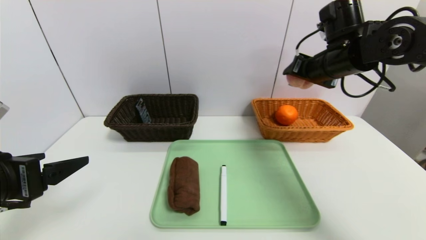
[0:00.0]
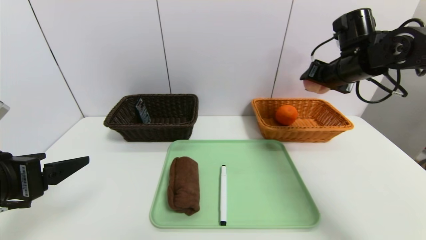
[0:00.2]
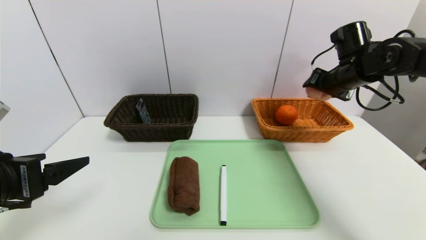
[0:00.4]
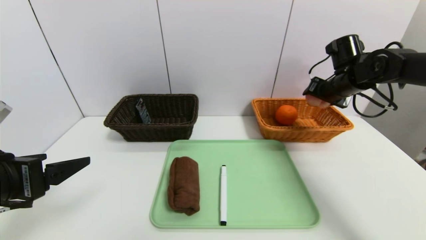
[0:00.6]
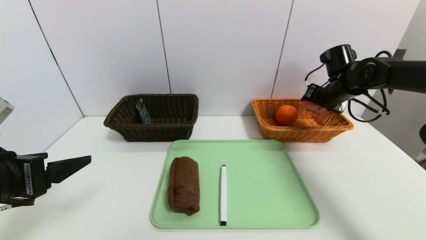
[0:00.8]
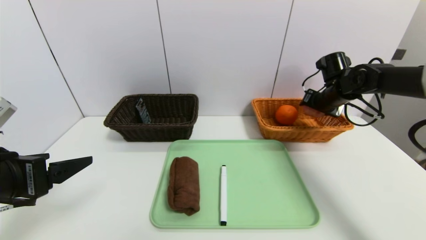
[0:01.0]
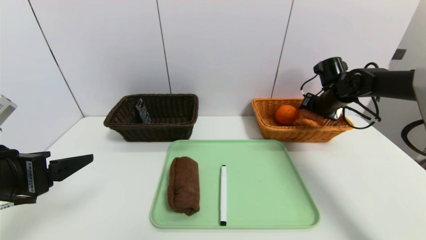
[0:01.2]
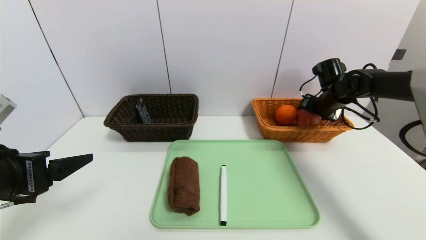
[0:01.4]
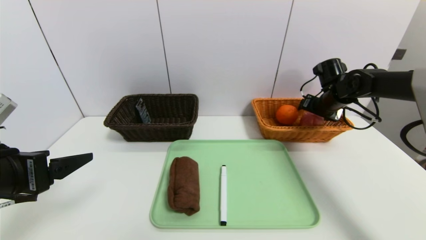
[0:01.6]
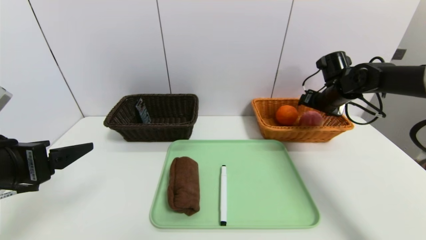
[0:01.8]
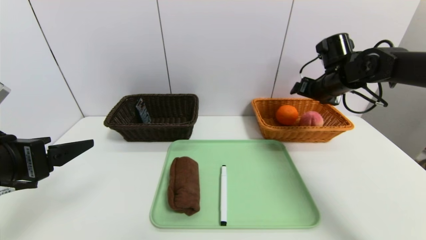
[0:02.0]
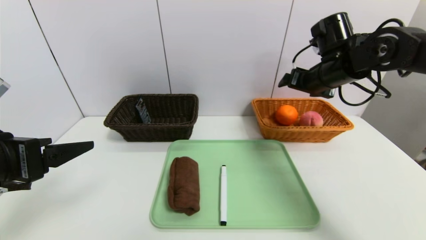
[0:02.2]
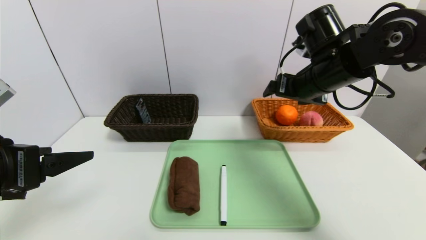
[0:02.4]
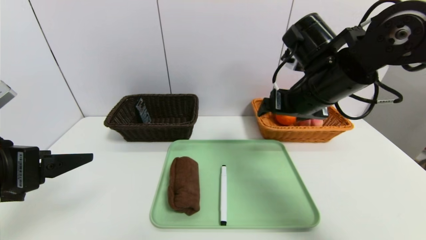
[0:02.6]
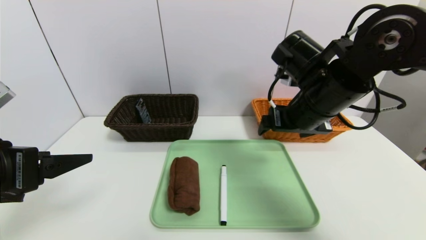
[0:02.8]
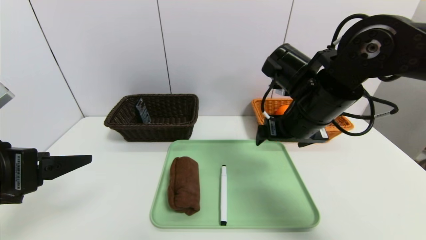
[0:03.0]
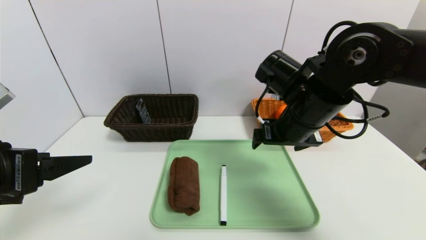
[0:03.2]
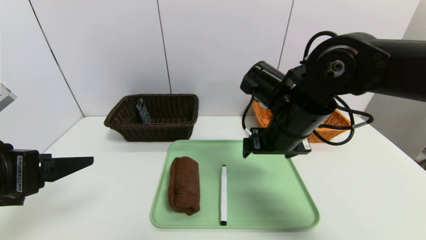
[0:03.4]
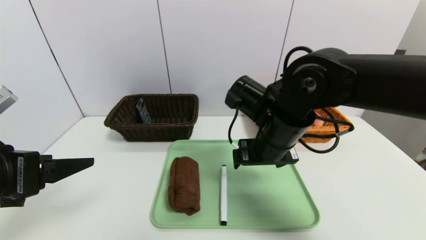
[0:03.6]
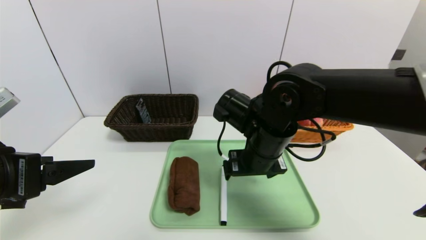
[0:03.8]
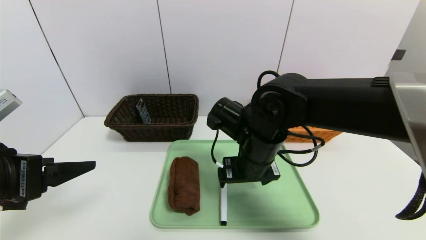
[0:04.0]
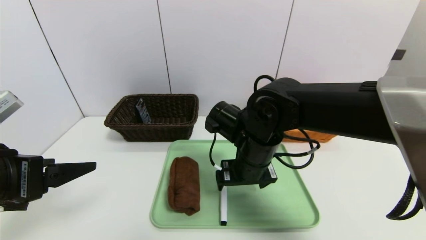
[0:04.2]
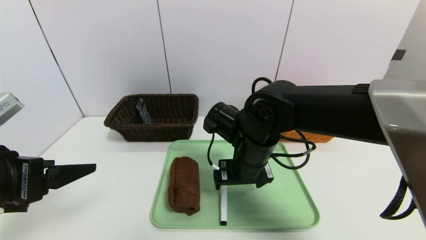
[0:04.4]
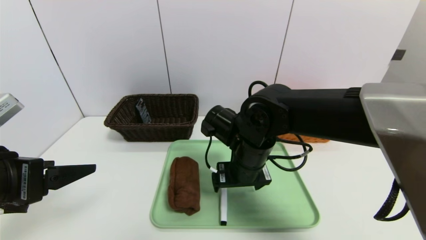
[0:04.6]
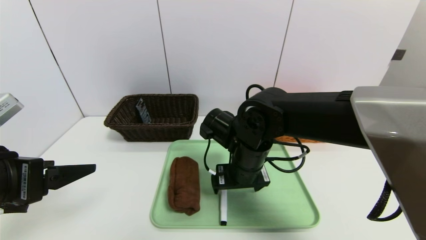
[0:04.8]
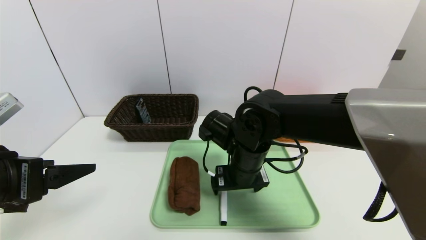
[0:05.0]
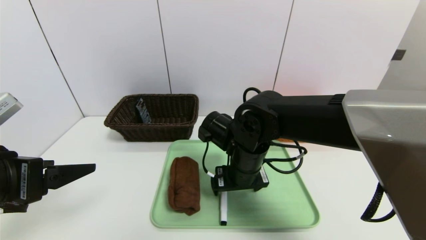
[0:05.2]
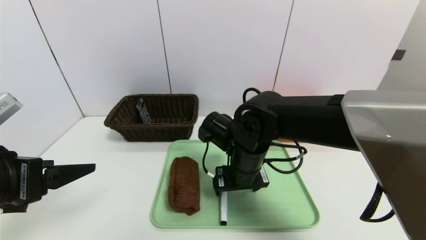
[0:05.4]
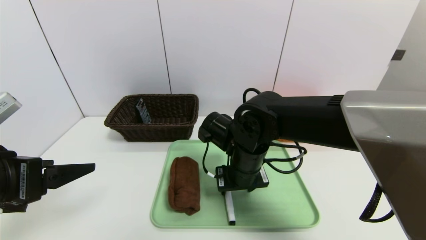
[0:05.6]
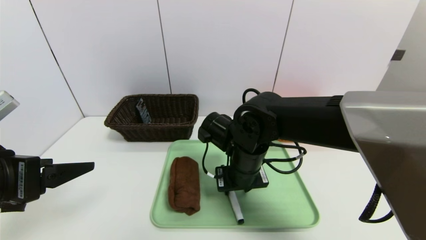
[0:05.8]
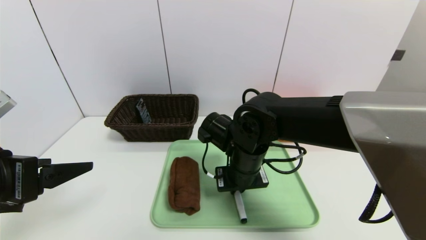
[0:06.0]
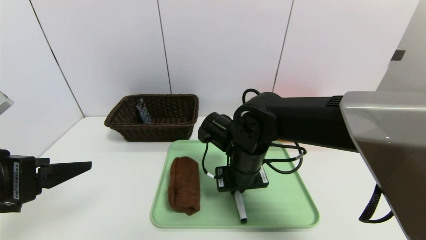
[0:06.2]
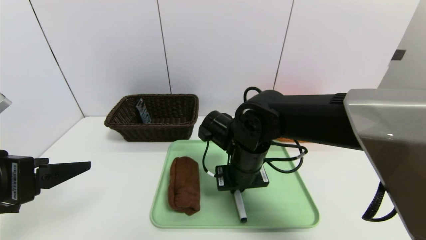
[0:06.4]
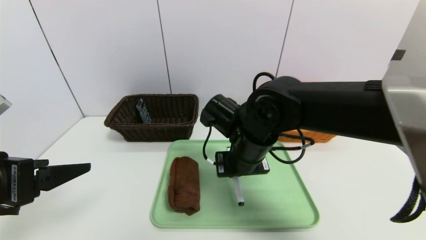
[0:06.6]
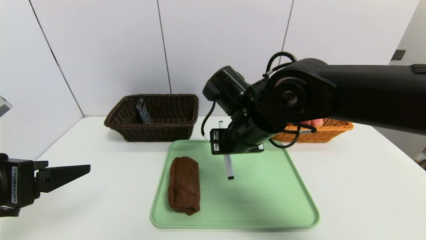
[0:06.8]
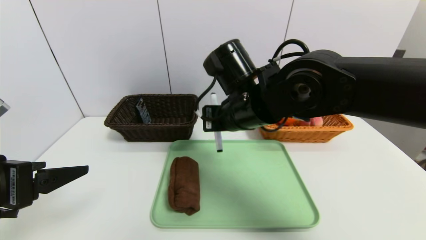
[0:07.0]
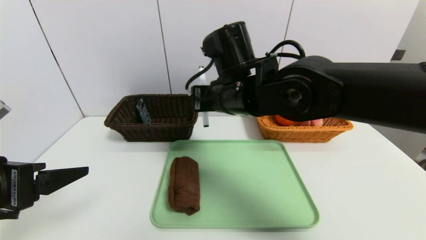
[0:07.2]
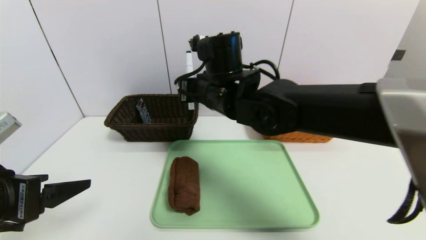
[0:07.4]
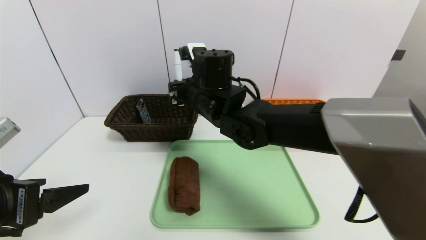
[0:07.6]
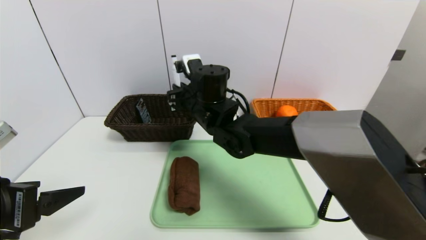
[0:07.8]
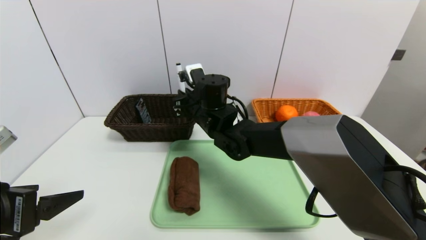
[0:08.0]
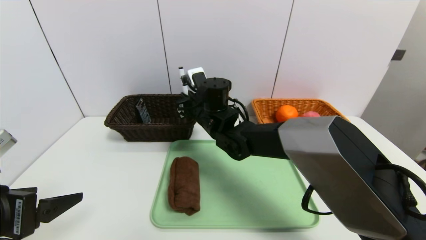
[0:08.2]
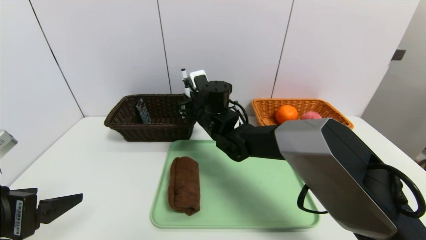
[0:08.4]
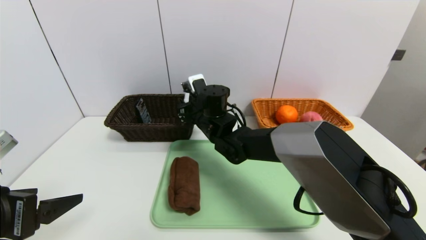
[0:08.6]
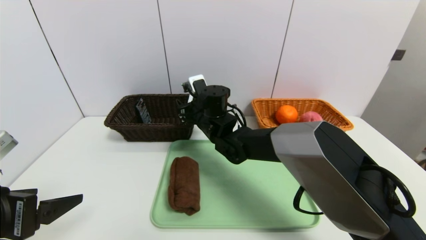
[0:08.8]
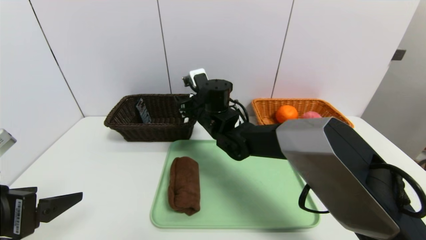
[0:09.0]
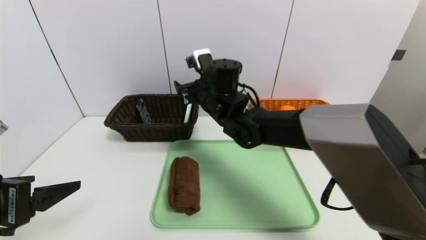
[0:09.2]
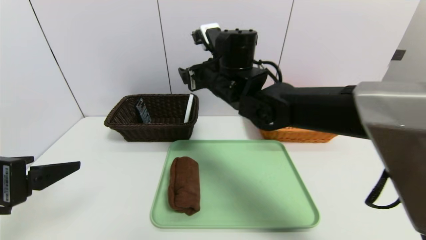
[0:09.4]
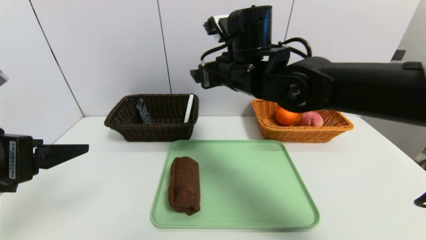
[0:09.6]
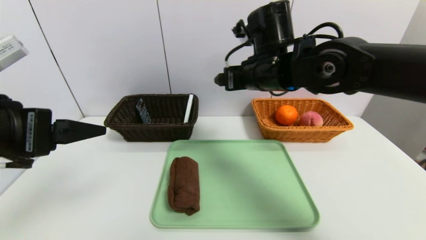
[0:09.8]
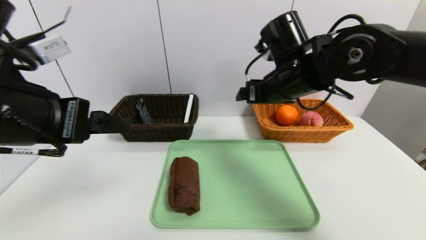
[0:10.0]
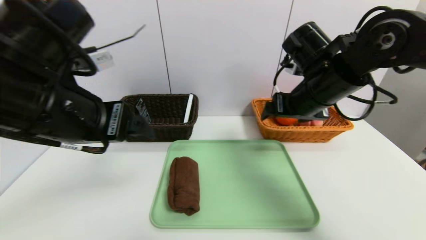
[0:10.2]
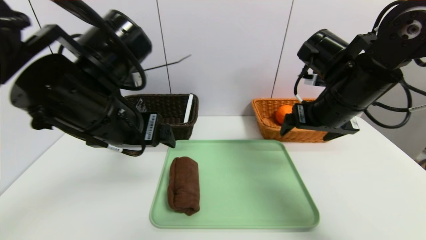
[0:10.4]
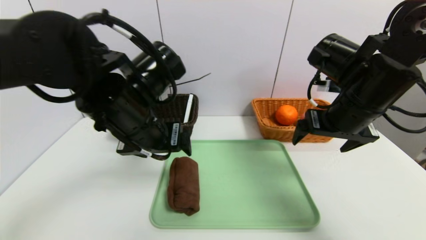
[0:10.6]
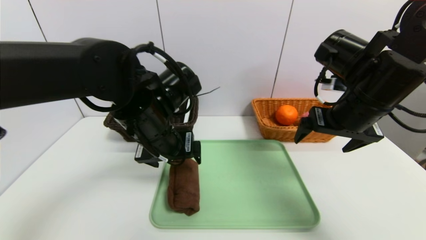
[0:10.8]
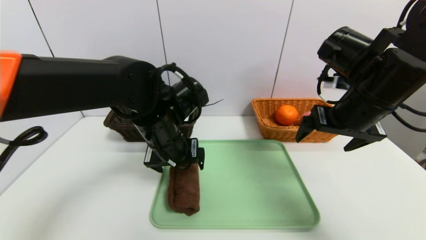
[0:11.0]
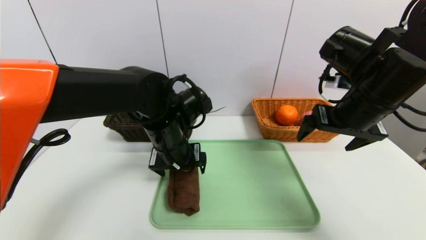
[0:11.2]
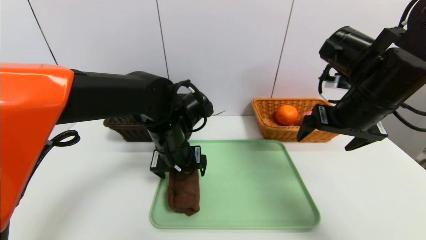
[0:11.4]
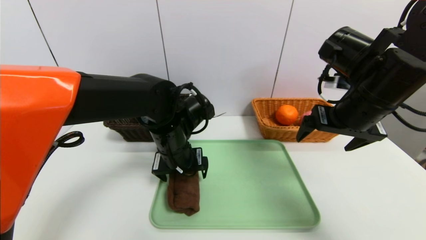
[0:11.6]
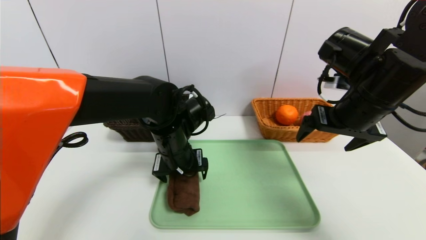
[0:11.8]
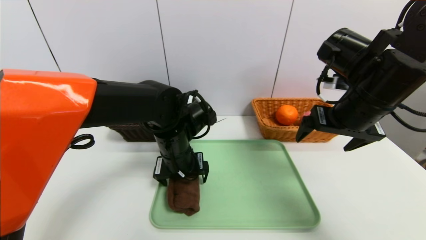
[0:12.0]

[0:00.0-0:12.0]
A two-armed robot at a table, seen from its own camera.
Task of the whole recording: place the food in the right basket with the right gripper, and place the non food items in the left basket with the left gripper.
Step, 0:00.0 to 0:02.0: Grasp the peach and put it in the right basket.
0:00.0 to 0:01.6: The right gripper shifts roughly 15 cm downward, forward and to the right.
0:01.6 to 0:03.0: The right gripper is displaced backward, to the left and upward by about 25 cm.
0:03.0 to 0:04.4: The right gripper goes about 10 cm to the left and downward.
0:04.4 to 0:06.0: The right gripper closes.
0:06.0 to 0:07.6: The right gripper goes approximately 15 cm upward, to the left and forward.
0:07.6 to 0:09.0: The right gripper travels downward and forward by some 10 cm, and opens up.
0:09.0 to 0:10.4: The right gripper shifts about 25 cm to the right, backward and upward; the left gripper shifts roughly 20 cm to the right, forward and upward.
0:10.4 to 0:12.0: The left gripper travels downward, forward and to the right by roughly 15 cm.

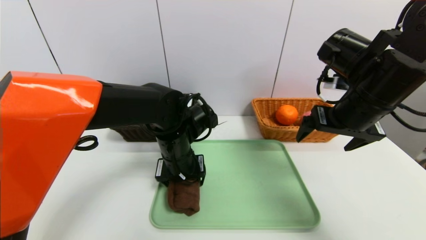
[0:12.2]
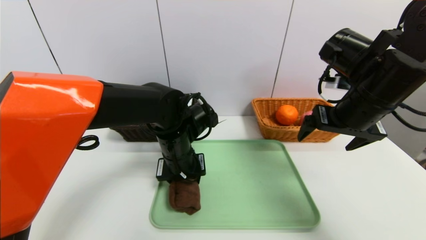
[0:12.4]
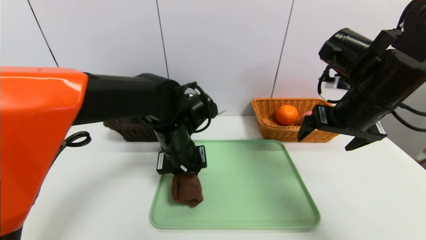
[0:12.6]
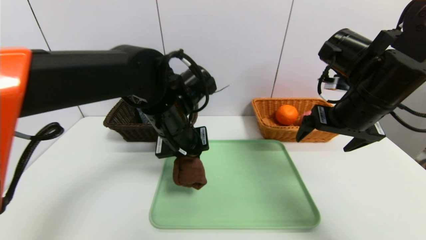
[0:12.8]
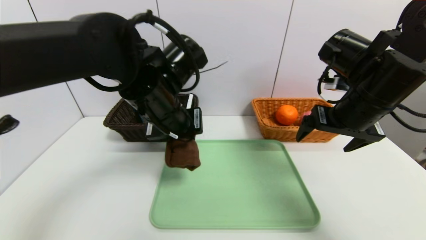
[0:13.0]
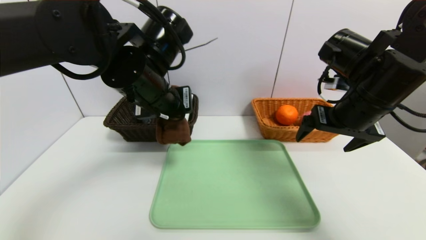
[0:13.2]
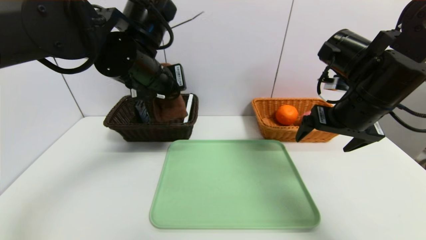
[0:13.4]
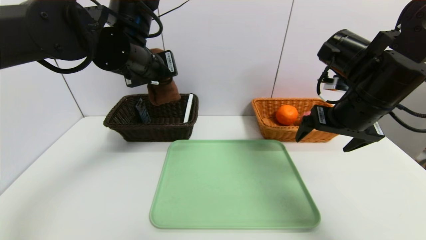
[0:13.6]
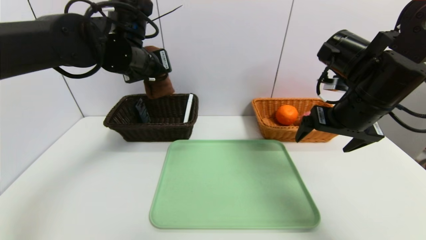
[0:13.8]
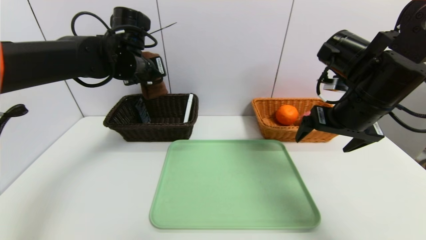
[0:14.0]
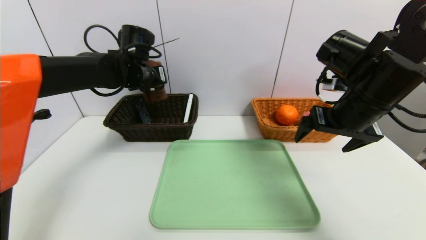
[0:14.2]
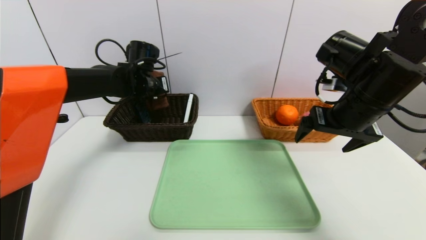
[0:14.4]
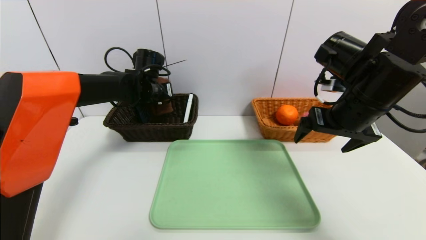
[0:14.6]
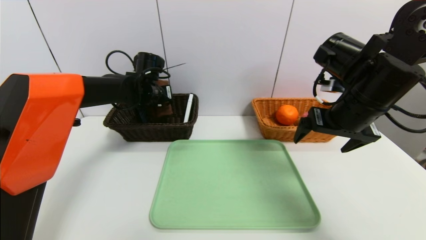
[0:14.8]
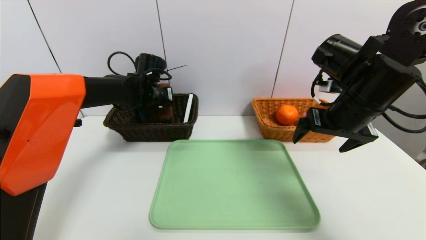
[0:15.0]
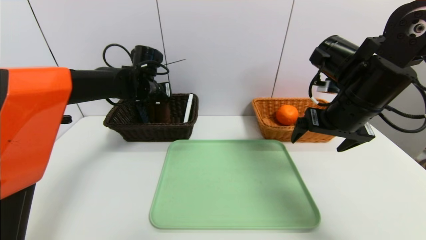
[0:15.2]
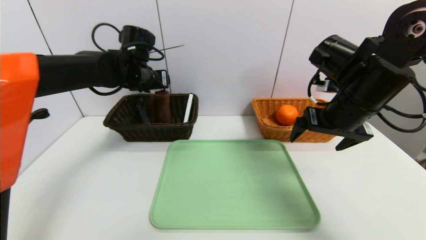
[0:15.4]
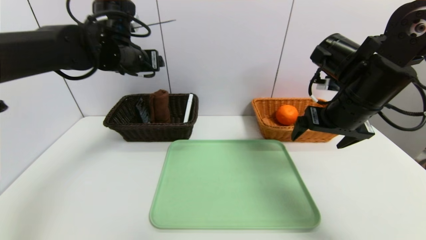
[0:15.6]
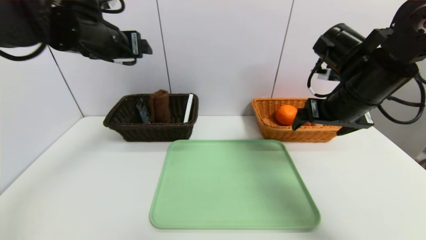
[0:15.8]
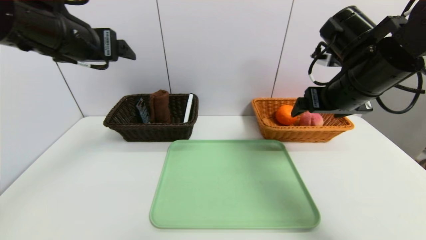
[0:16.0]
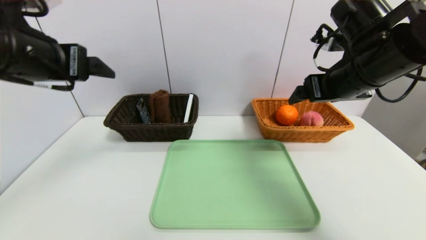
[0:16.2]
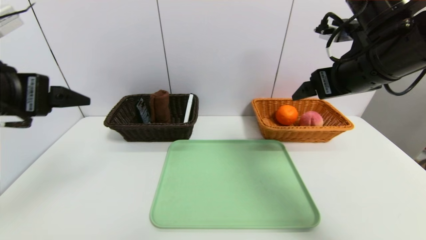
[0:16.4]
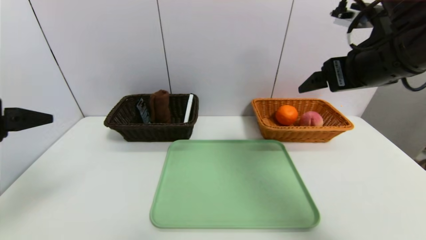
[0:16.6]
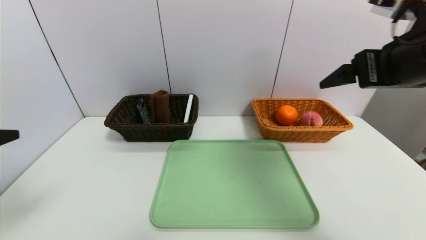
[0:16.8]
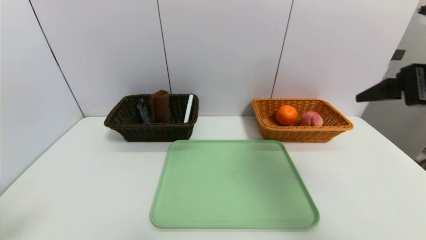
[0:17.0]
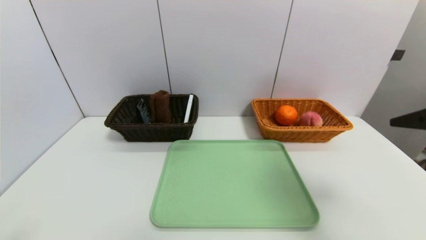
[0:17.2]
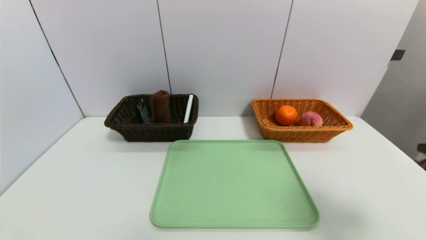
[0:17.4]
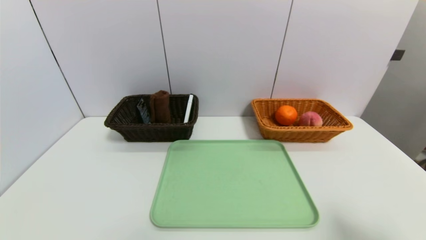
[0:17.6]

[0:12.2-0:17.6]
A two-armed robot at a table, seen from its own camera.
Task of the whole recording: place the food in the right basket with the right gripper, and place the non food items in the left basket with the left gripper.
Step, 0:12.2 to 0:15.4: Grasp the brown towel and put it in the left basket.
0:12.2 to 0:13.6: The left gripper travels upward by approximately 15 cm, and closes its fingers.
0:13.6 to 0:15.0: The left gripper shifts some 20 cm forward and downward, and opens up.
0:15.0 to 0:16.2: The left gripper goes roughly 30 cm backward and upward, and opens.
0:16.2 to 0:17.6: The left gripper is displaced backward and downward by some 30 cm, while the right gripper shifts roughly 25 cm backward and to the right.
